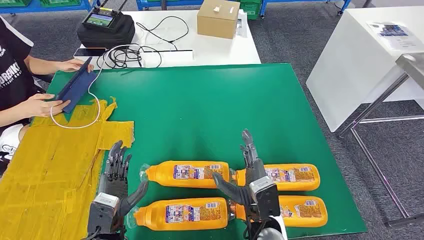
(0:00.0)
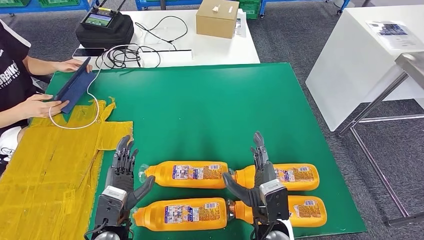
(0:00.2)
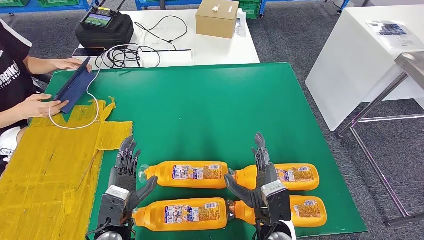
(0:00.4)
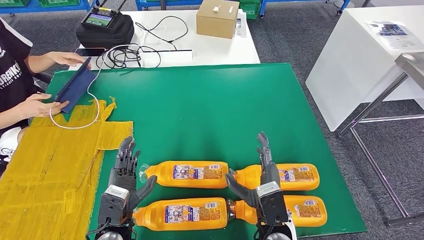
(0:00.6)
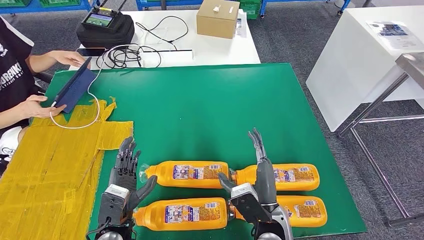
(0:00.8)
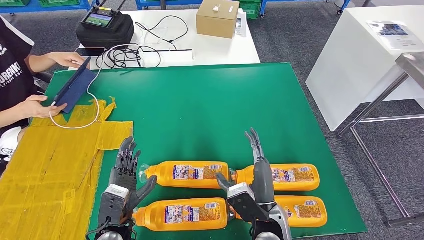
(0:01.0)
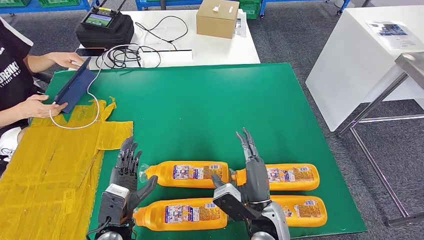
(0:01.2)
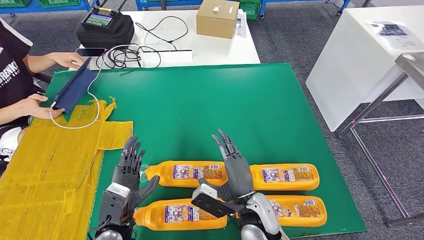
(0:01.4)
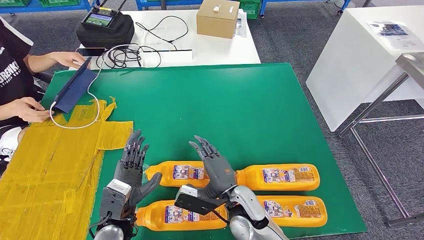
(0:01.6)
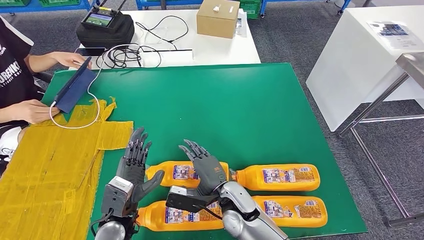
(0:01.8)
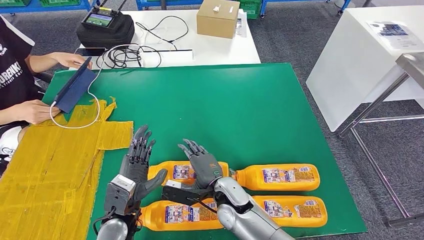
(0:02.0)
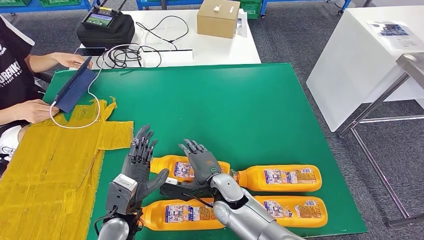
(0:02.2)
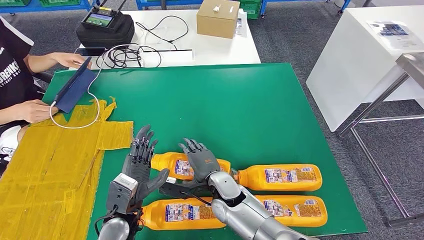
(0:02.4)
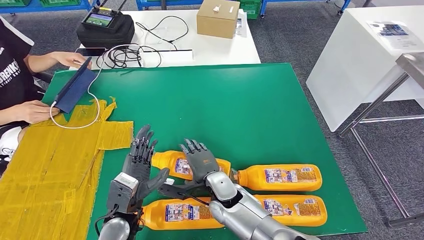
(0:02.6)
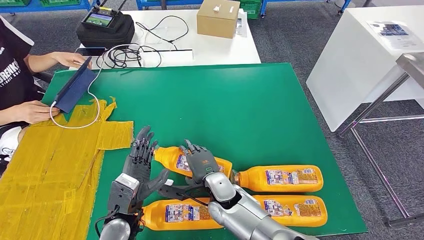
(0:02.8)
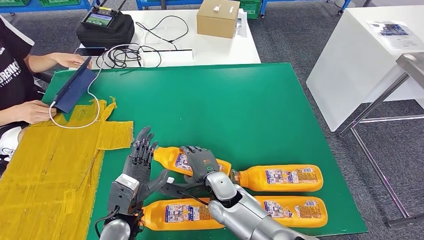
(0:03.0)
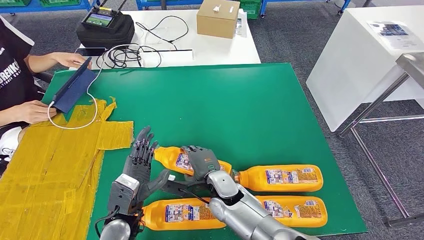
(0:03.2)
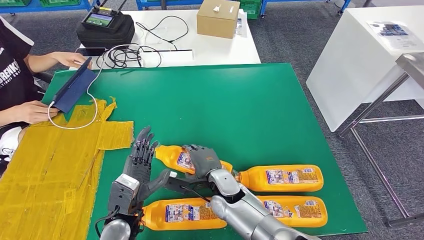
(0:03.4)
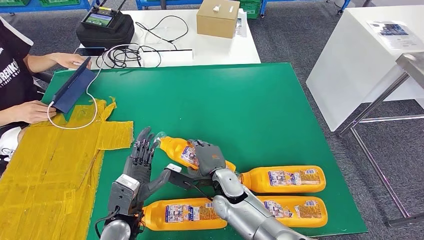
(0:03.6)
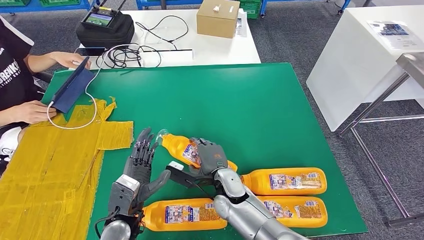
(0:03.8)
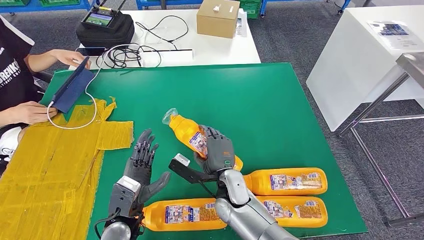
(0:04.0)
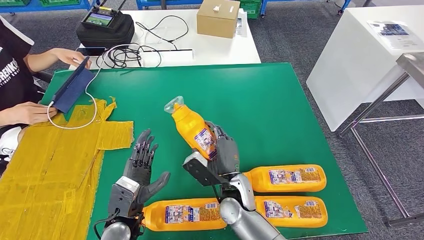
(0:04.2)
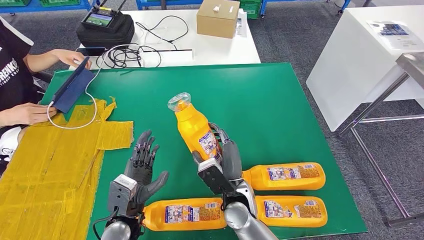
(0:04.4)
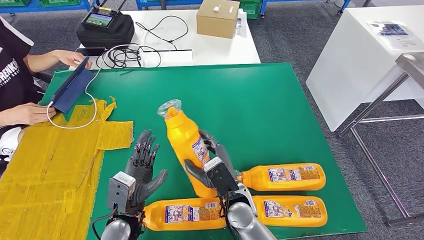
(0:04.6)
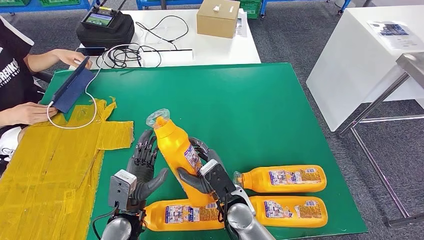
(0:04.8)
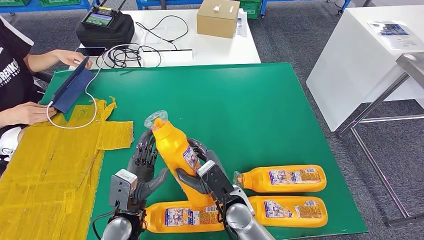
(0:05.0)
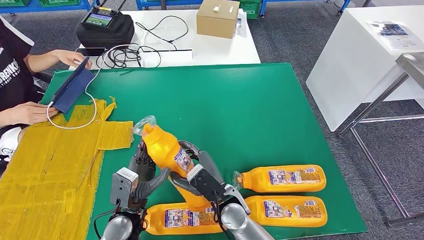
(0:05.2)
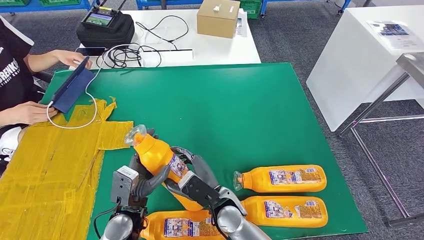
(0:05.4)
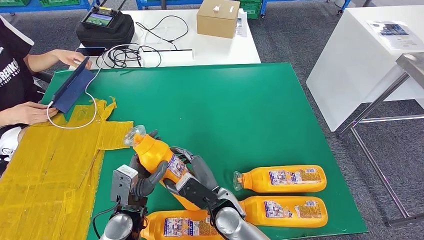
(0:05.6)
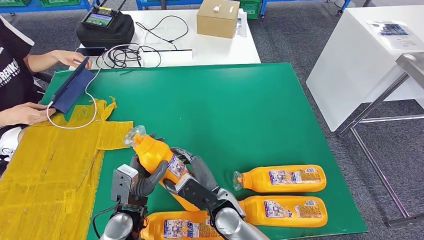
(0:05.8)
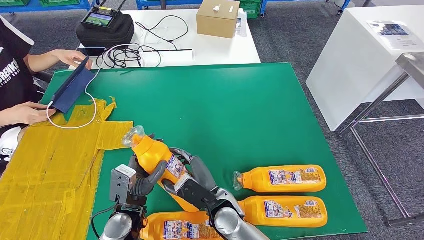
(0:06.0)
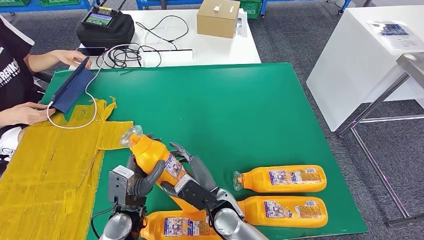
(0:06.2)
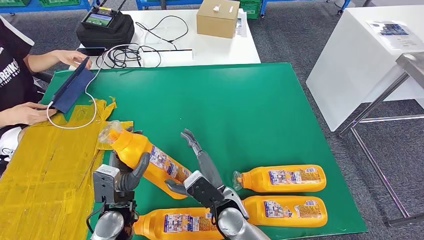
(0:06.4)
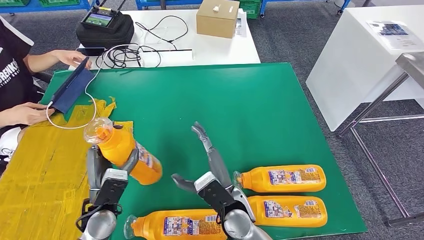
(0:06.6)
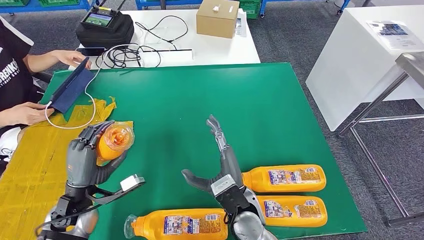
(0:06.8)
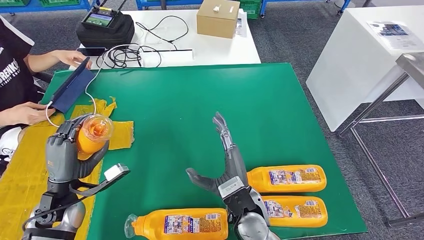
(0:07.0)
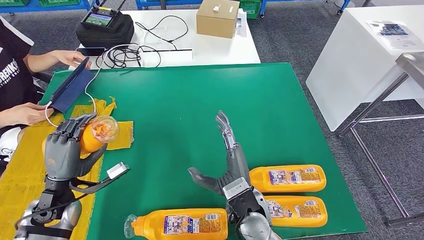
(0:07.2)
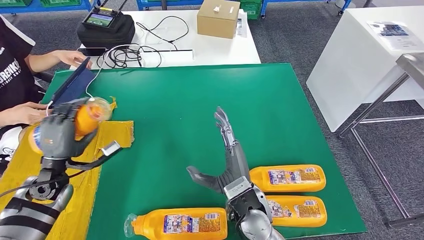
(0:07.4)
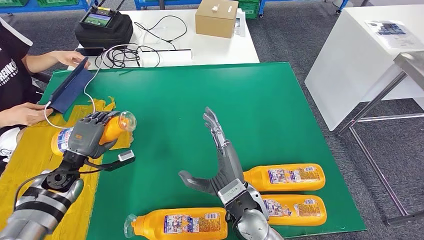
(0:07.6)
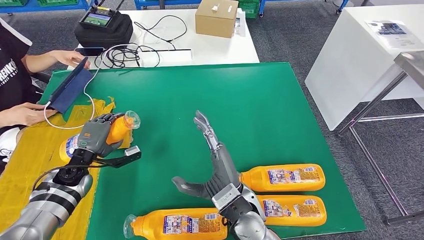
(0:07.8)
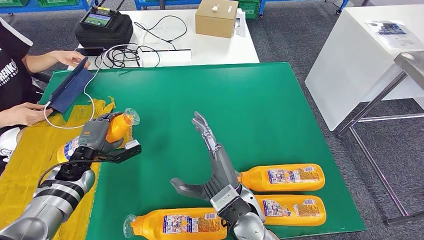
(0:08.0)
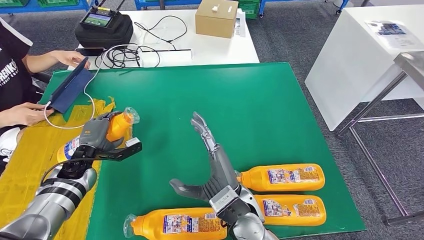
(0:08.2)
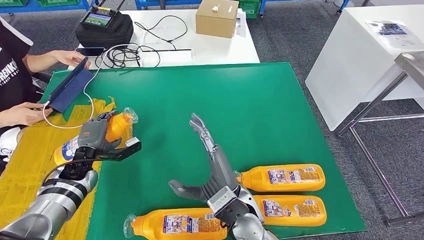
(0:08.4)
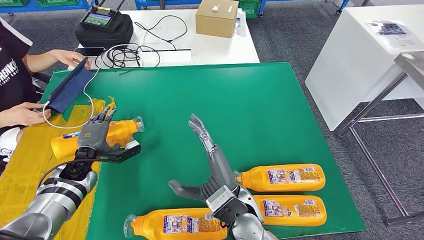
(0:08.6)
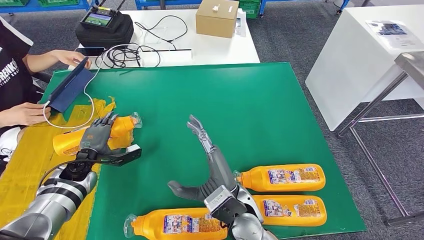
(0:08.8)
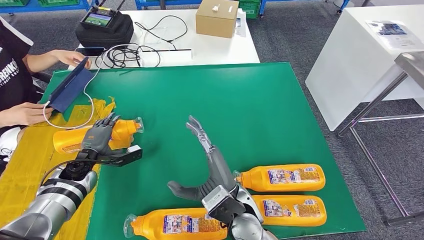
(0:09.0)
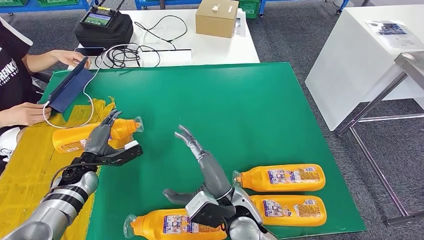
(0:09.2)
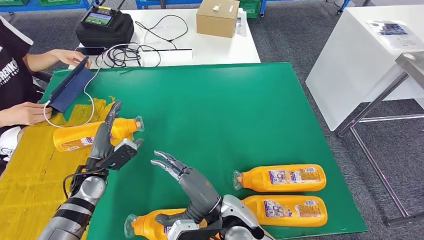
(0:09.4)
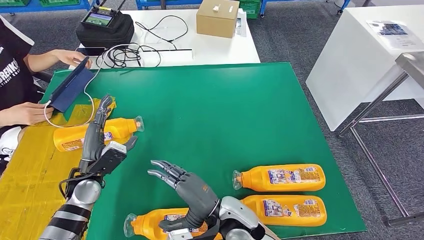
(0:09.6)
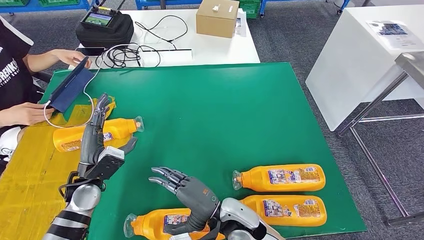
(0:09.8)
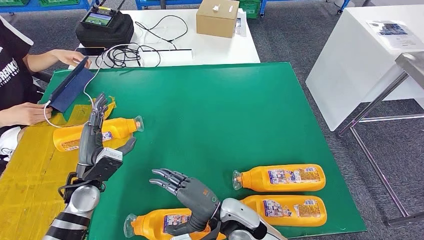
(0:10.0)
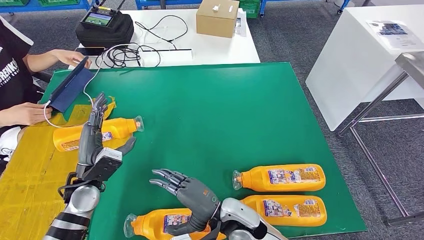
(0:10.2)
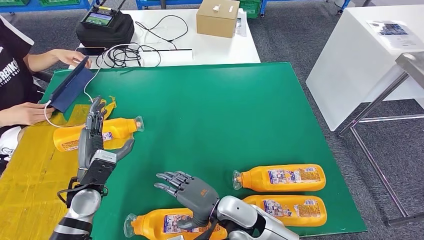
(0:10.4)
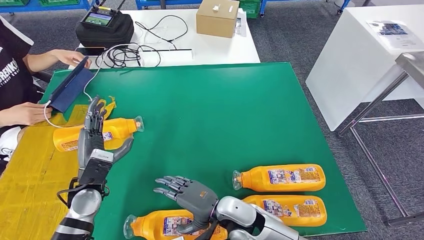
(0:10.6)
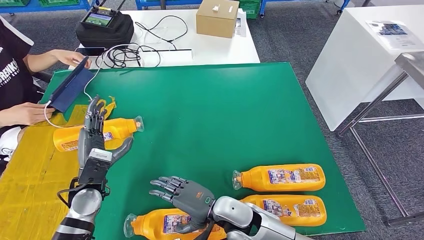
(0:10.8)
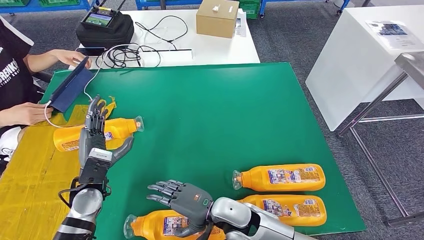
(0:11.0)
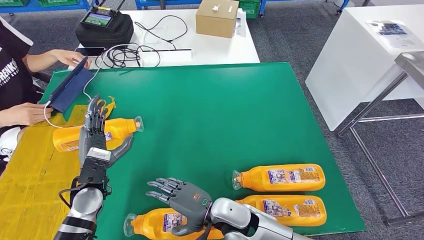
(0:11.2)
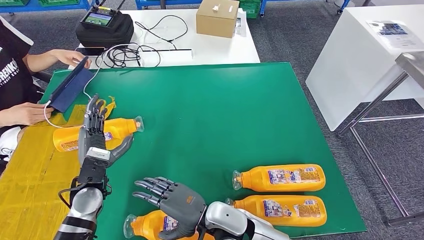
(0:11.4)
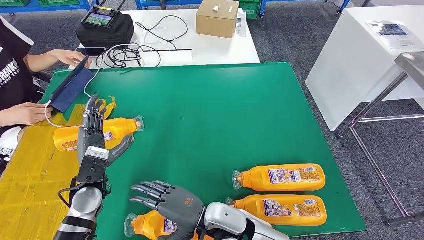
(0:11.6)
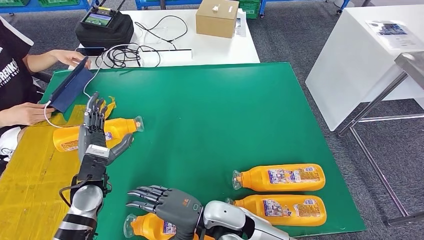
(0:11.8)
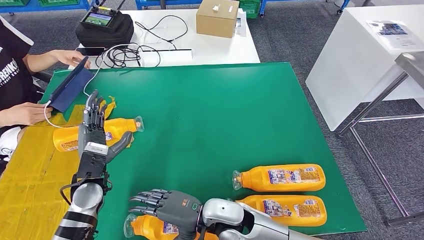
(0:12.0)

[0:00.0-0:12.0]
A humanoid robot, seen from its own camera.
Step, 0:00.0 to 0:07.6: Take the fast-moving consumer goods bottle from the table.
Step, 0:07.8 to 0:10.4: Flip the fast-moving consumer goods bottle to the front side.
0:01.6 to 0:03.0: The right hand moves about 5 cm.
0:03.0 to 0:04.4: The right hand changes place by approximately 5 cm.
0:09.0 to 0:10.4: The left hand travels backward and to the right by some 10 cm.
0:10.4 to 0:12.0: There are only small adjustments of the hands.

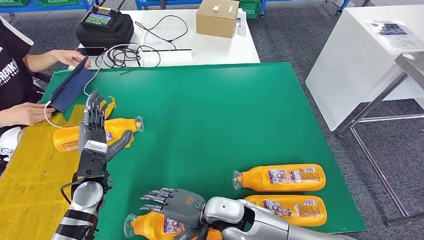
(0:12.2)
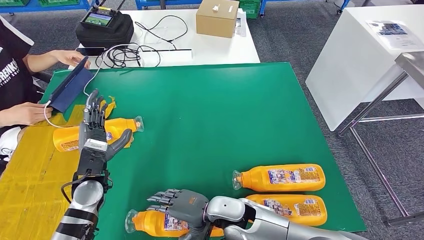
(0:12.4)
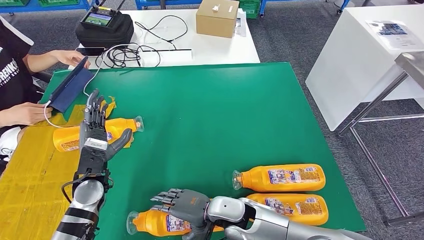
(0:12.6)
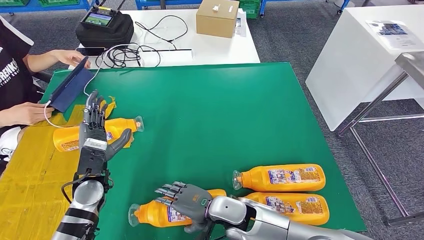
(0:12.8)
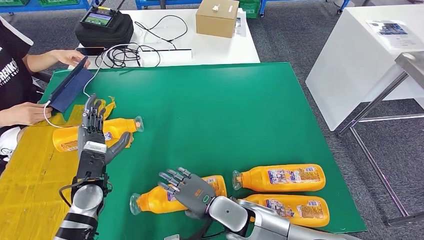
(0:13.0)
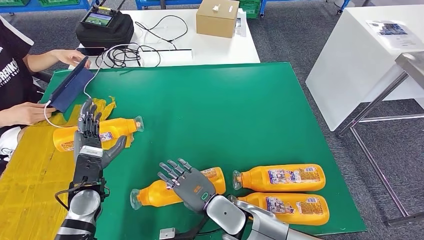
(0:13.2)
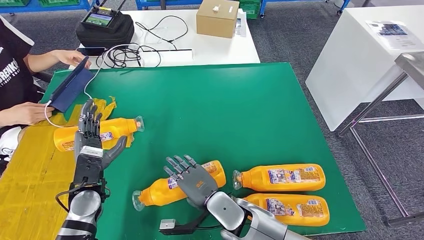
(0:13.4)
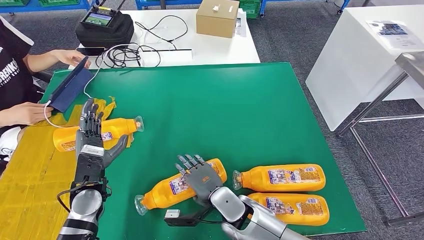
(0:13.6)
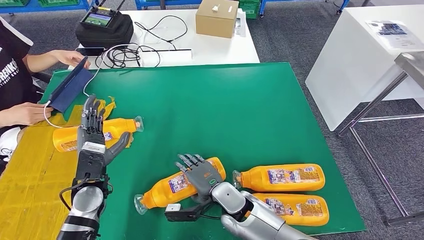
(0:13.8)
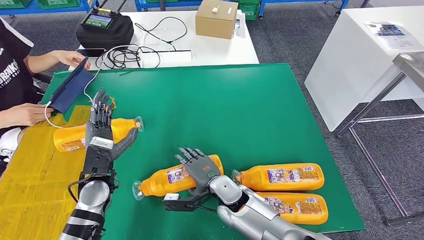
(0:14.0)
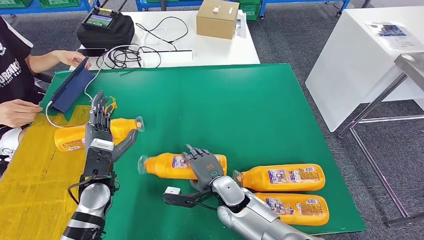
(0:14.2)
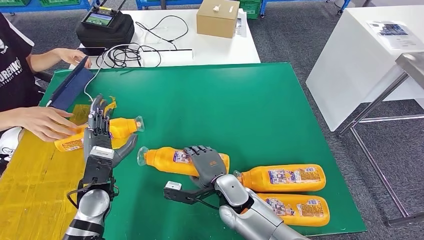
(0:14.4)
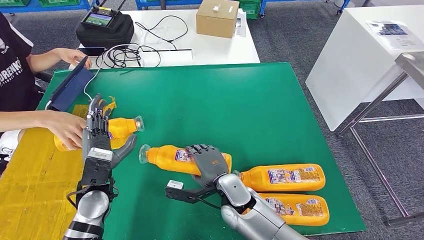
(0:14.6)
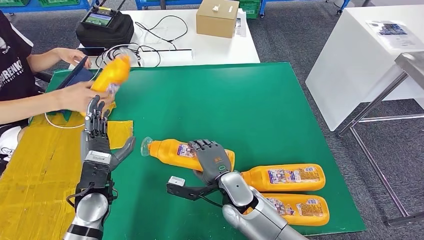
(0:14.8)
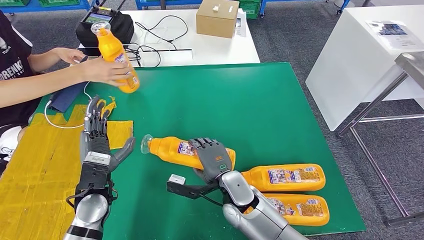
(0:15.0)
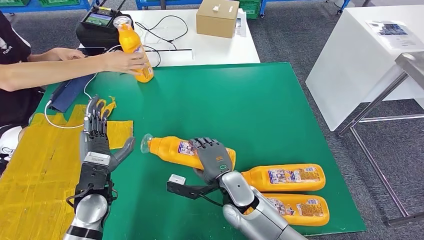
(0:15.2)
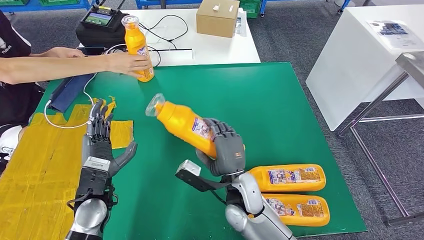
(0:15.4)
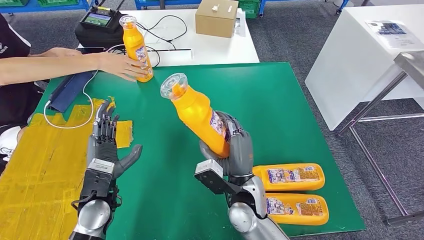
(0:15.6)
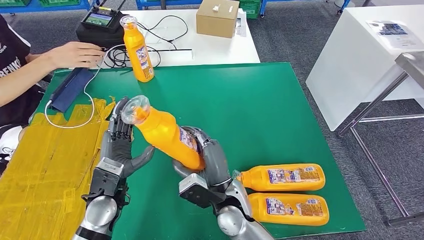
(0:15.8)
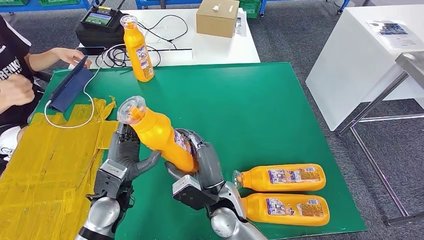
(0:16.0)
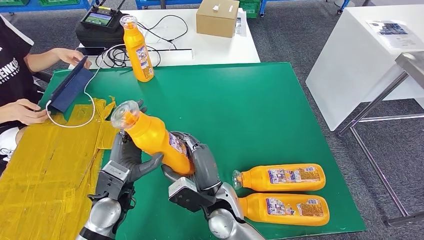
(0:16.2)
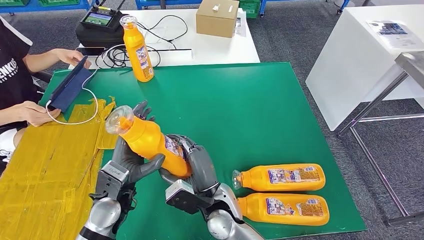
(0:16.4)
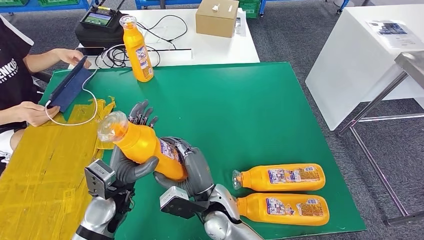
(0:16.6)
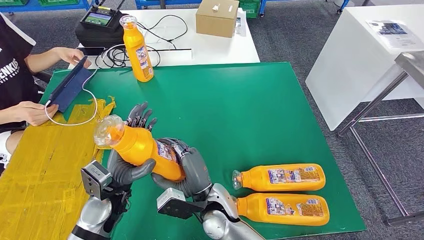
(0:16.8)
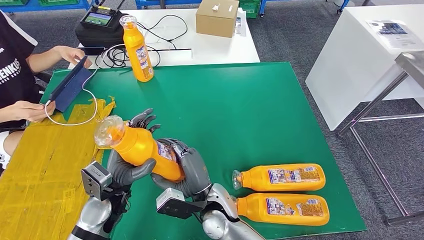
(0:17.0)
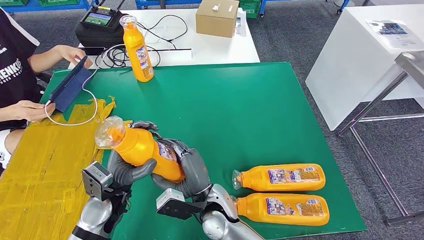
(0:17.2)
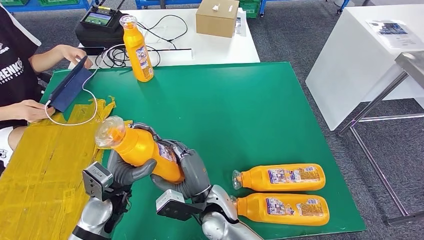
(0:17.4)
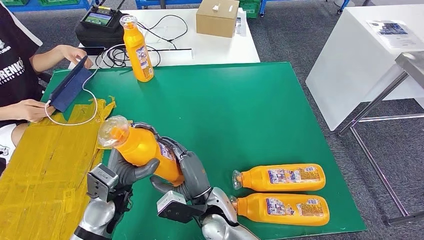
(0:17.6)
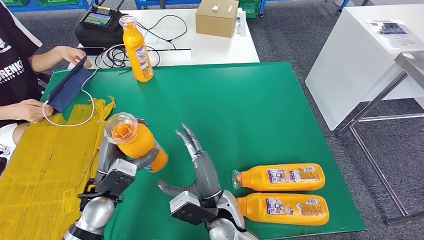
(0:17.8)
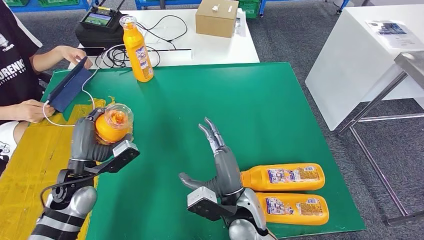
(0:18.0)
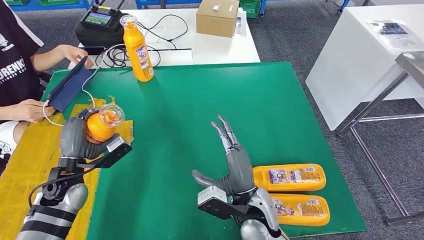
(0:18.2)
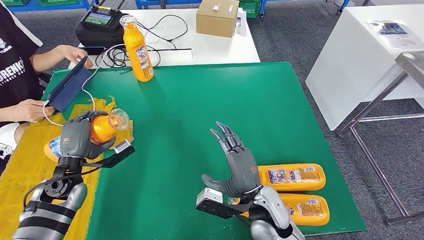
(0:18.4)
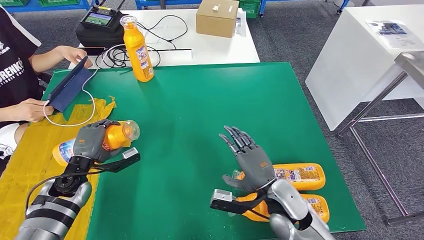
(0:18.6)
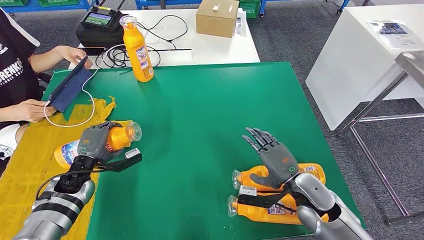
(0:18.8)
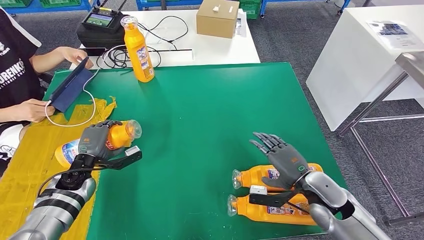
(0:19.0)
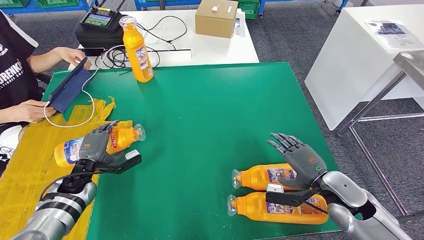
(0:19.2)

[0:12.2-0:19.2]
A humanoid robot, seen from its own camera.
Step, 0:12.2 to 0:15.4: Pick up the fast-moving consumer goods bottle from the table.
